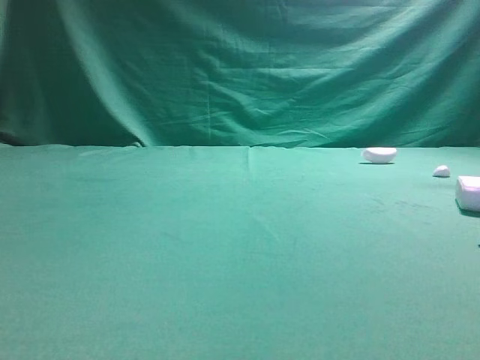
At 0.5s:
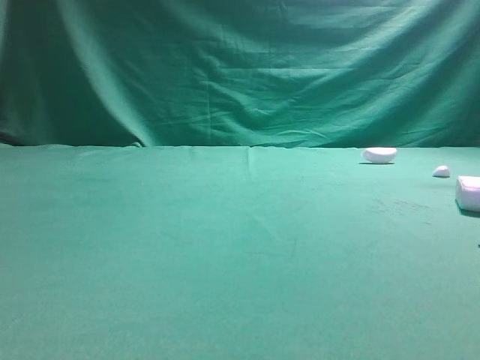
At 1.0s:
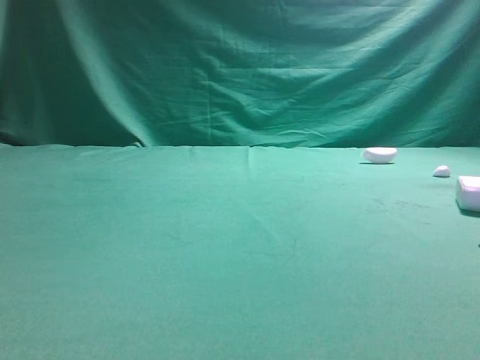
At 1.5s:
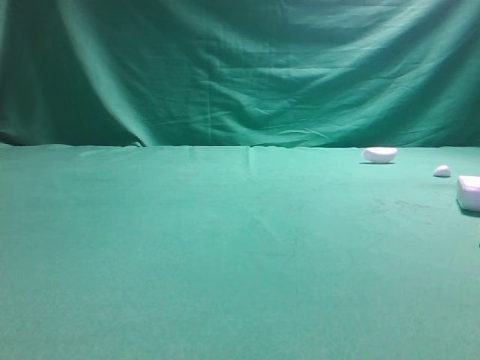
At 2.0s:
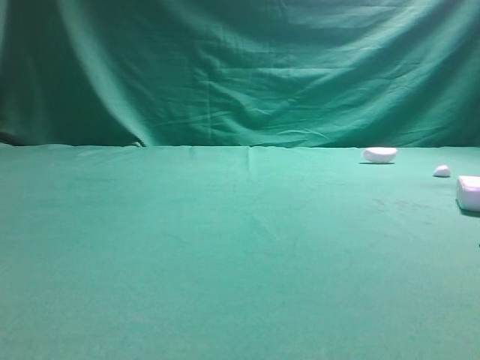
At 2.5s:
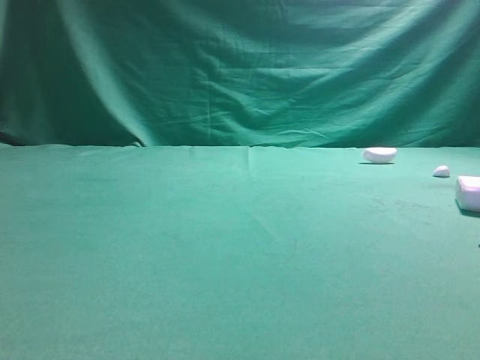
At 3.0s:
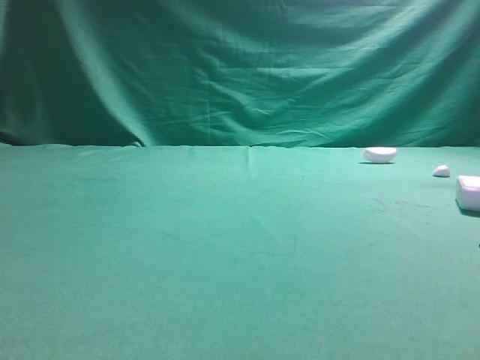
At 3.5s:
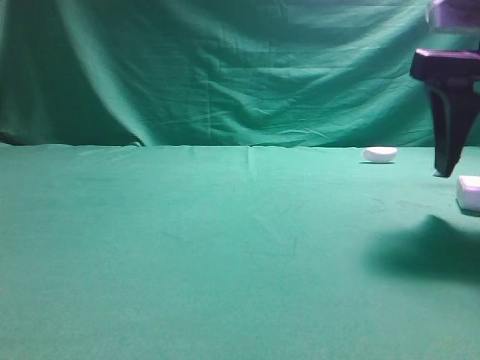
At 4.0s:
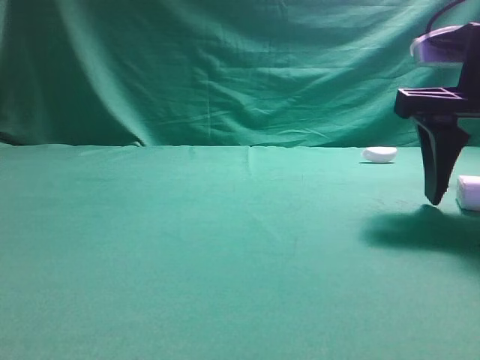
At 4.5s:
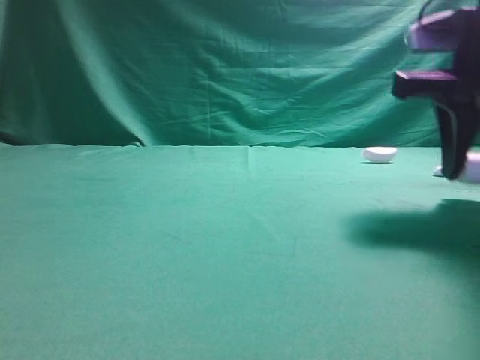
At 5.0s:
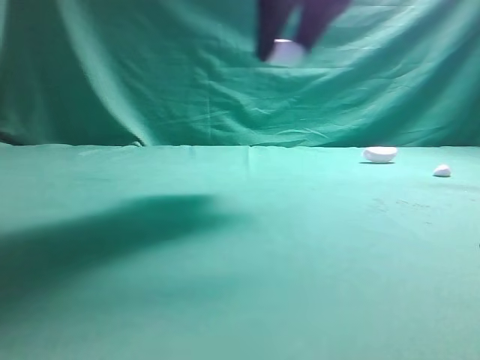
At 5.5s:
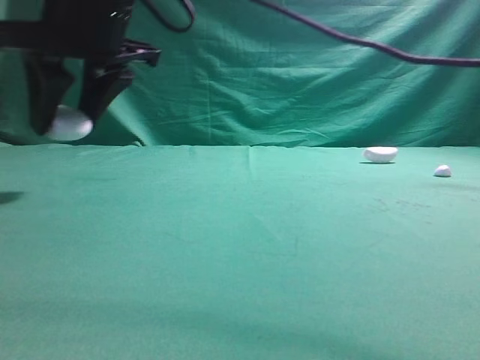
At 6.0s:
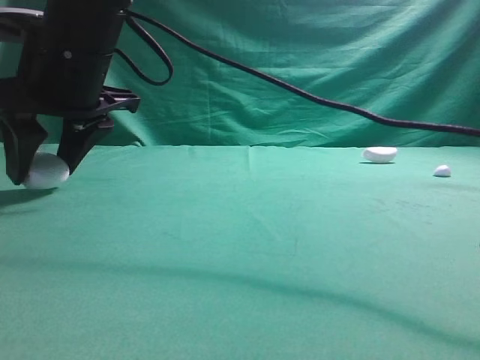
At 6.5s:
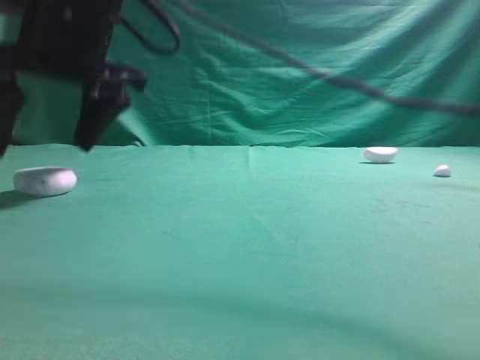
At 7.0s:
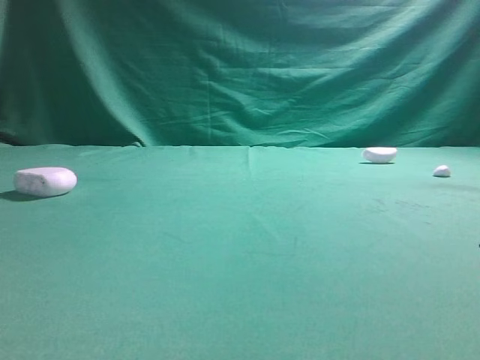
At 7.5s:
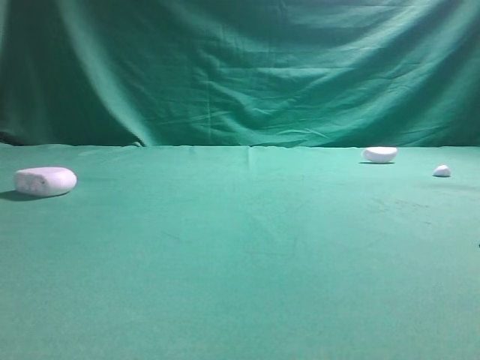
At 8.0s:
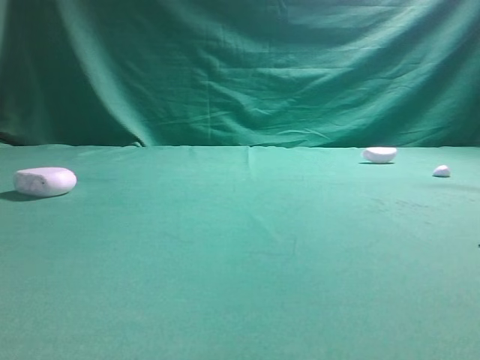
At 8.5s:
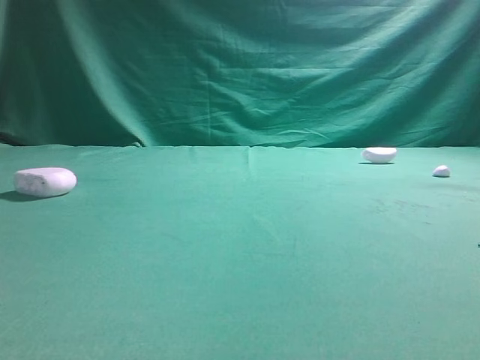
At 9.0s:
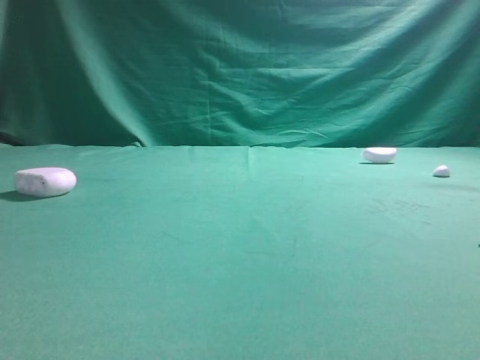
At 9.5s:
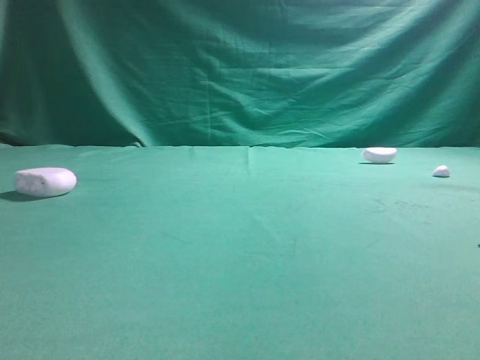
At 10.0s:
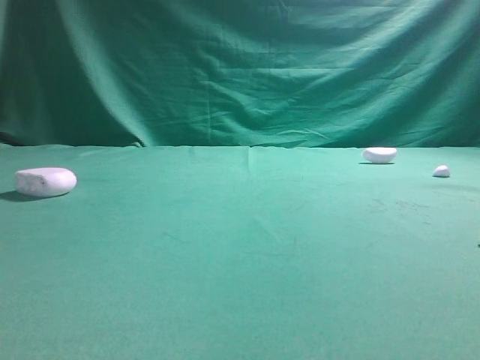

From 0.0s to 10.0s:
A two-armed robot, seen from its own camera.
Step, from 0.0s to 4.5s: Grasp the Bluetooth earphone case.
Step, from 5.0s to 6.5s: Place bluetooth earphone case on the left side of the table.

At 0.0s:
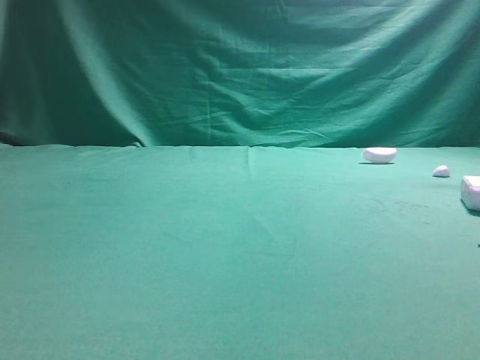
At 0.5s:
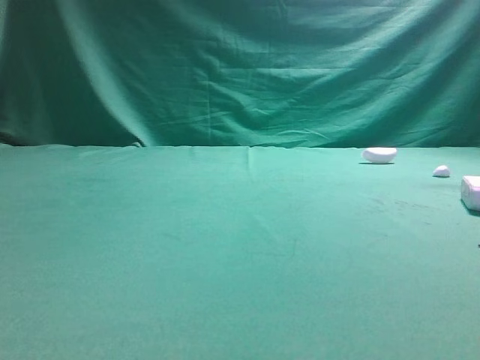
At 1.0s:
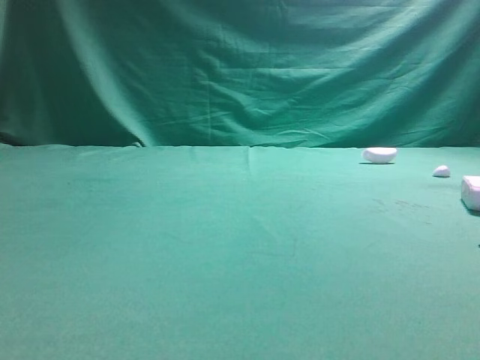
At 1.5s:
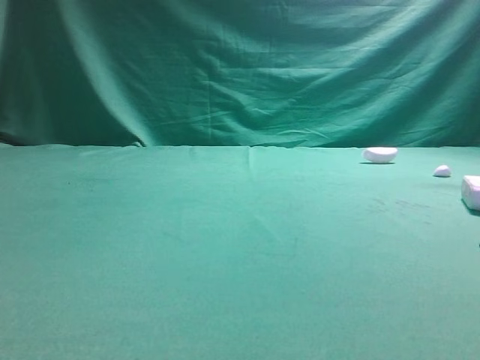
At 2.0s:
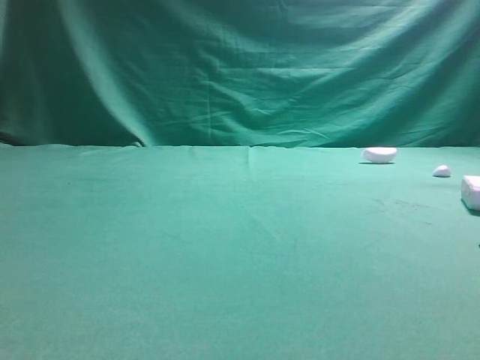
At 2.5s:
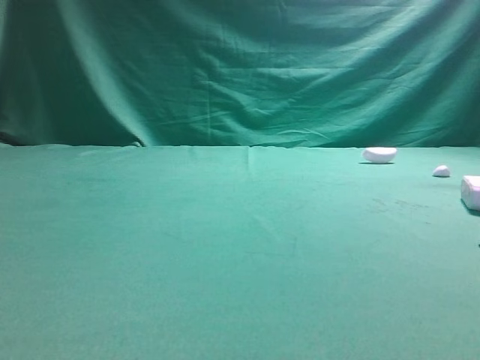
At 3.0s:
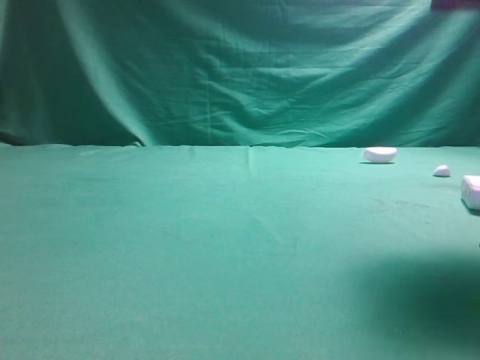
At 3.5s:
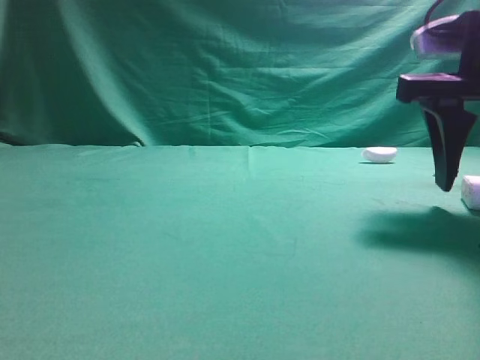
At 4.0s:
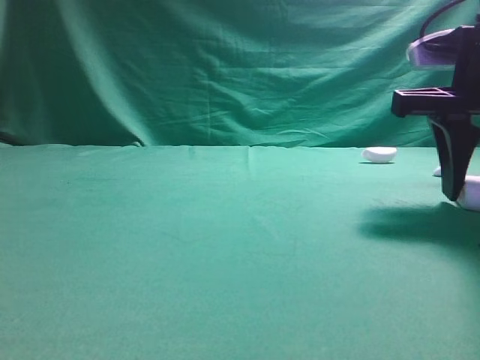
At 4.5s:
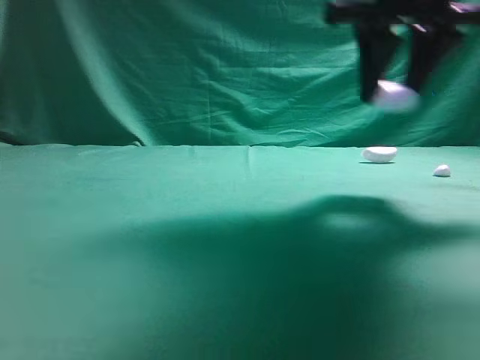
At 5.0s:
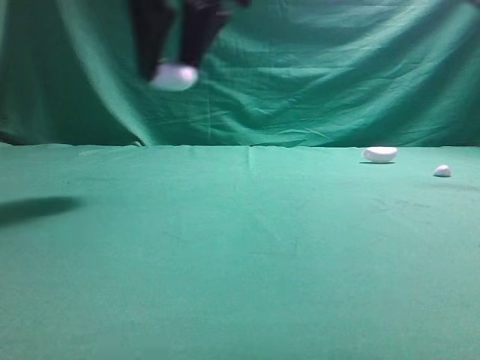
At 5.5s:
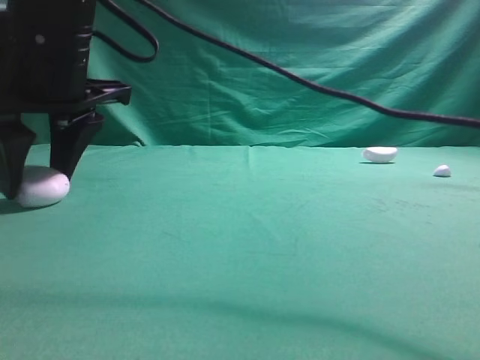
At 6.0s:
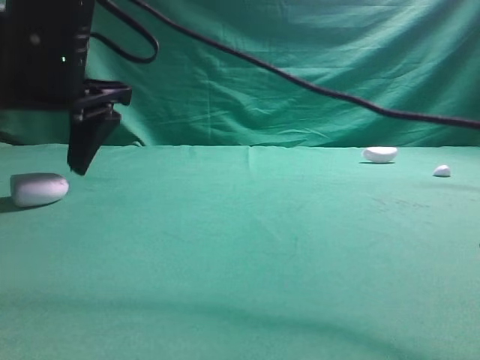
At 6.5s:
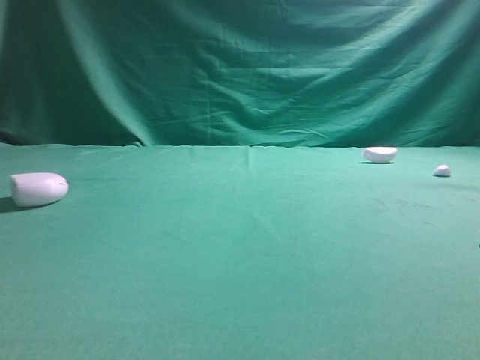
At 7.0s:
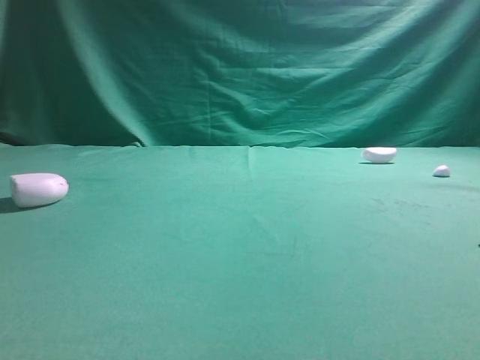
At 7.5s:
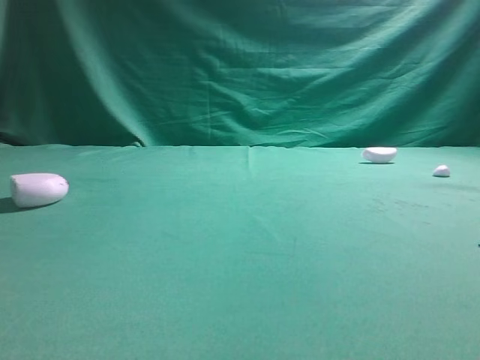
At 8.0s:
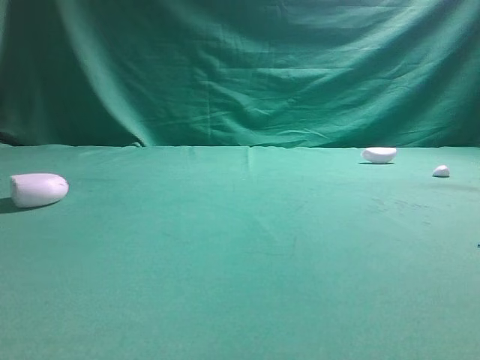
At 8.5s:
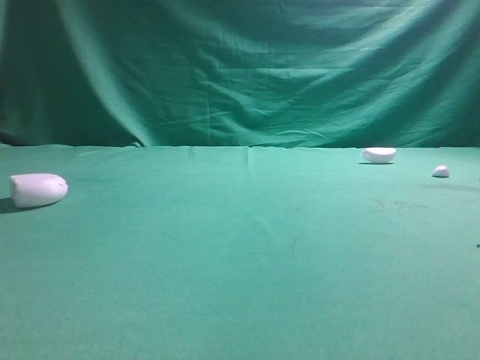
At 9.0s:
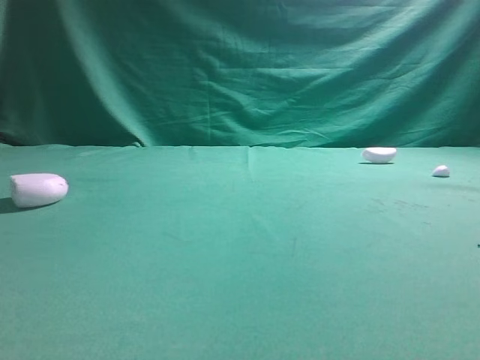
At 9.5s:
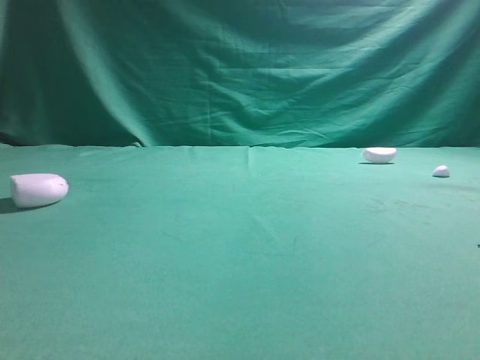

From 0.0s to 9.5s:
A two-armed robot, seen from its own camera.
Step, from 0.0s to 4.0s: Grasp the Bluetooth earphone case.
Step, from 4.5s to 6.0s: Place bluetooth earphone case on the left side of the table.

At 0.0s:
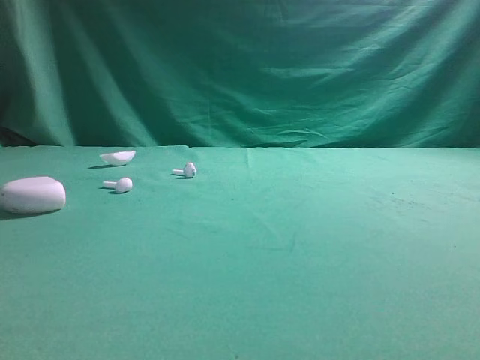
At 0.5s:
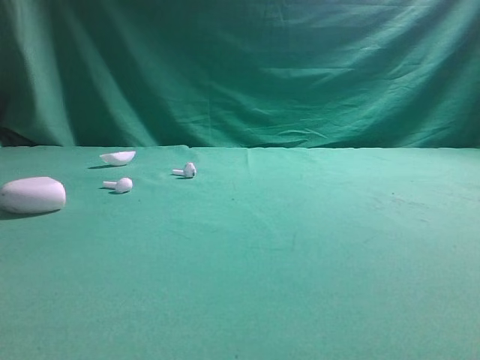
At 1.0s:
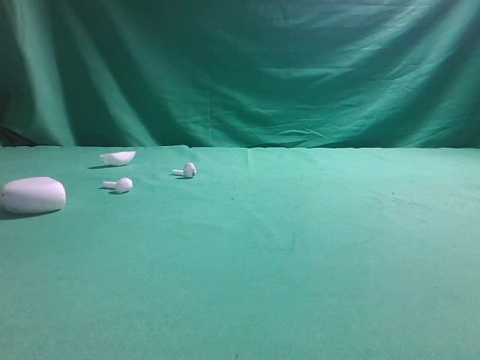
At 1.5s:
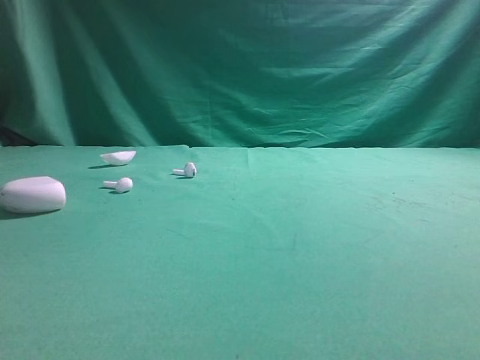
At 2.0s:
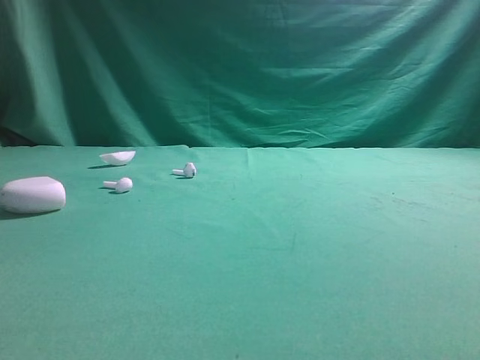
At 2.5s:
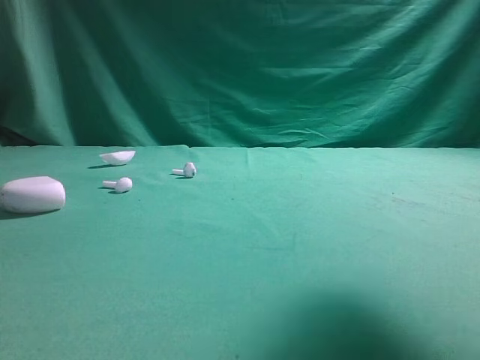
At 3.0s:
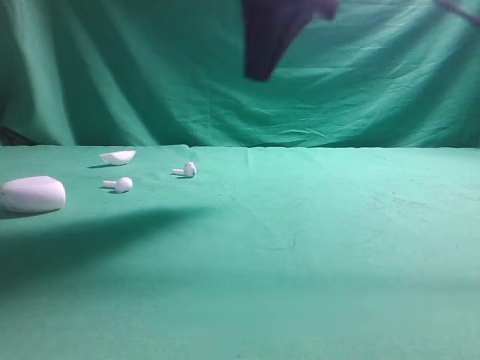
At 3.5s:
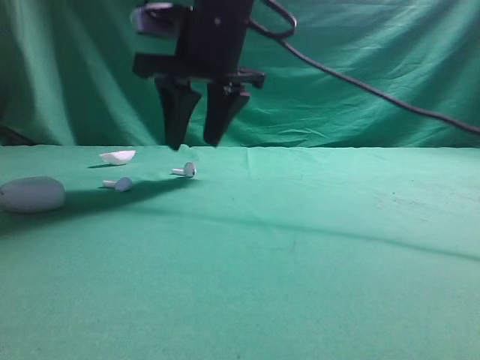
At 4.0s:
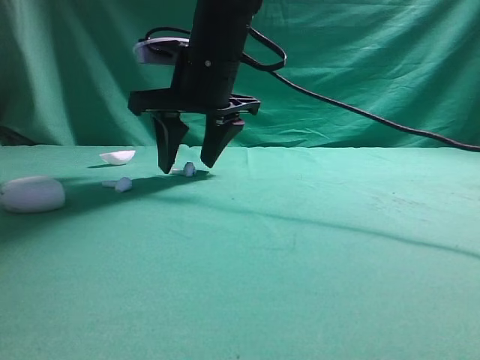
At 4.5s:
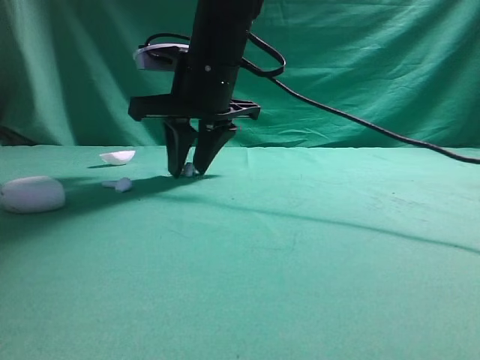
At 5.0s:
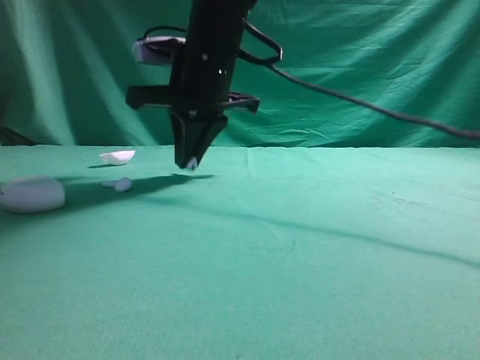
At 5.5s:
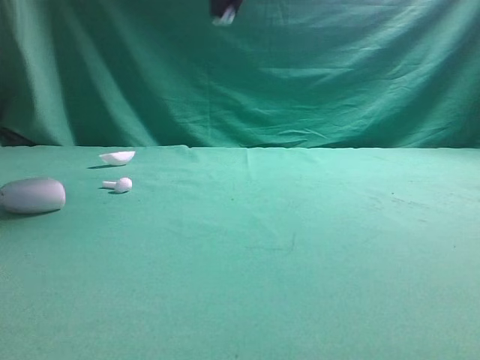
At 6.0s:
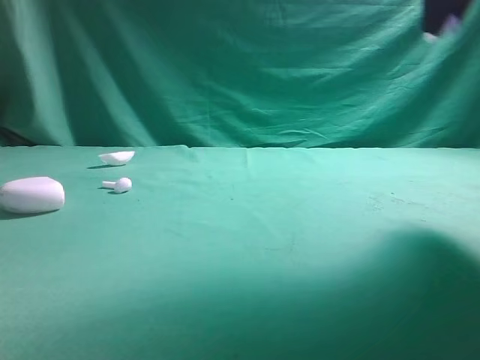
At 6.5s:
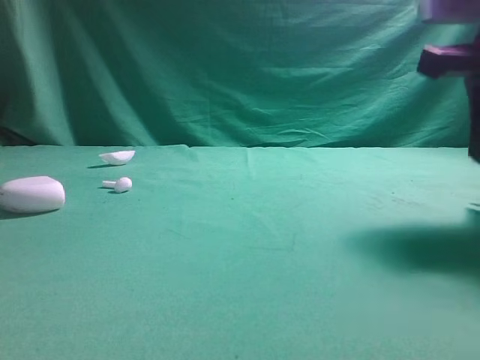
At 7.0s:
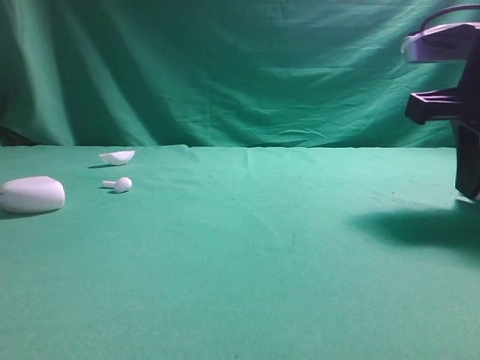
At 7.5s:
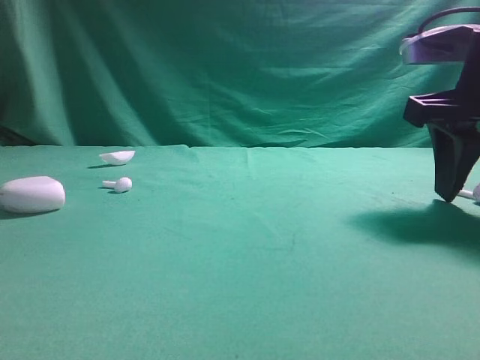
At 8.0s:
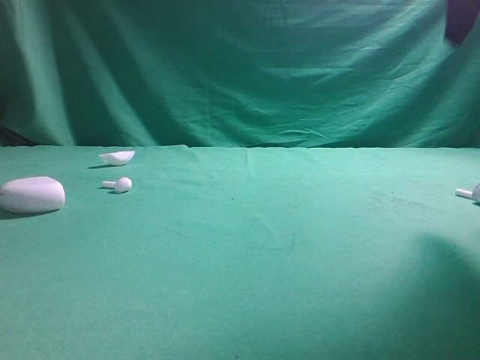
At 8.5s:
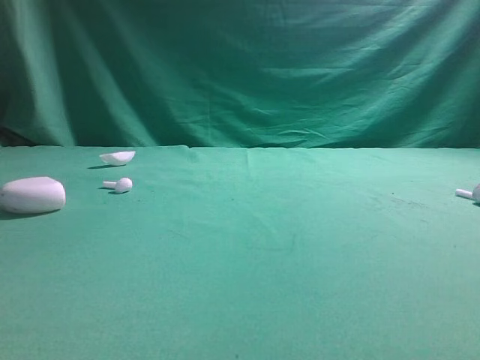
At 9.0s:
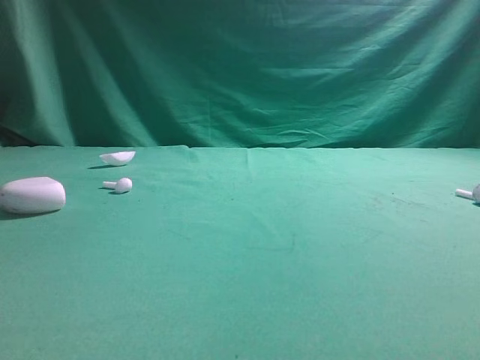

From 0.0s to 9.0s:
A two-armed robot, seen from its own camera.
Step, from 0.0s to 5.0s: Grasp the Bluetooth earbud.
Step, from 5.5s to 7.5s: Place bluetooth earbud on the right side of the table.
